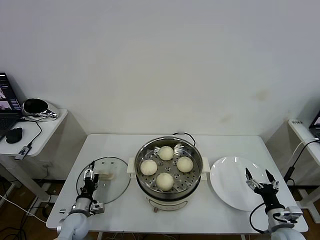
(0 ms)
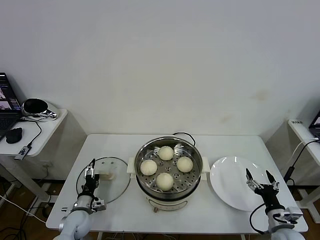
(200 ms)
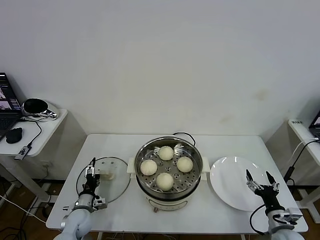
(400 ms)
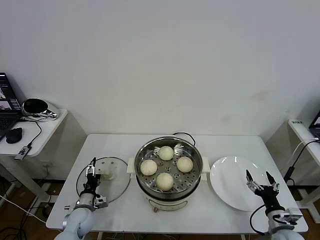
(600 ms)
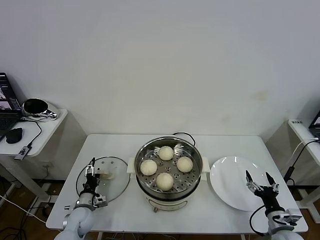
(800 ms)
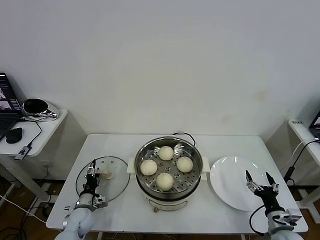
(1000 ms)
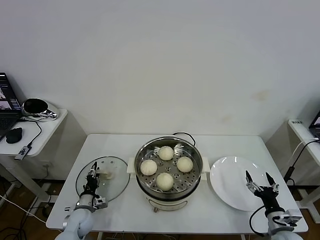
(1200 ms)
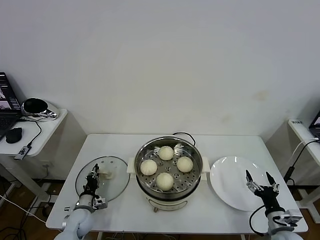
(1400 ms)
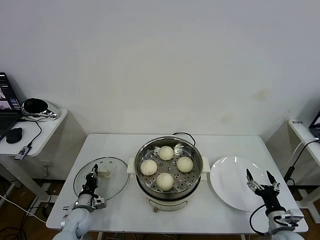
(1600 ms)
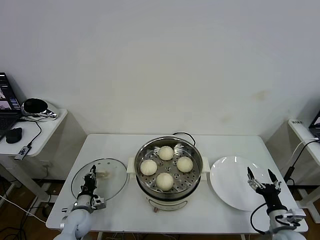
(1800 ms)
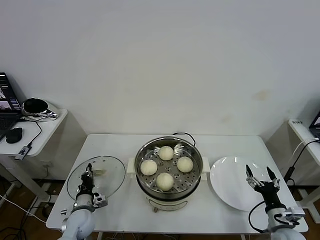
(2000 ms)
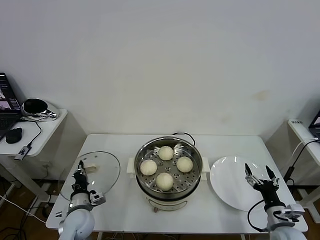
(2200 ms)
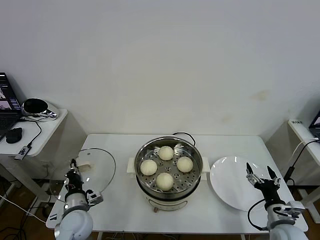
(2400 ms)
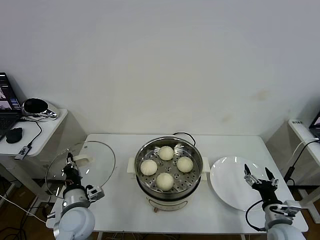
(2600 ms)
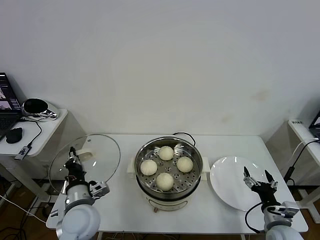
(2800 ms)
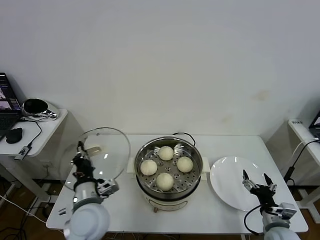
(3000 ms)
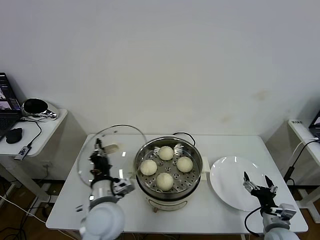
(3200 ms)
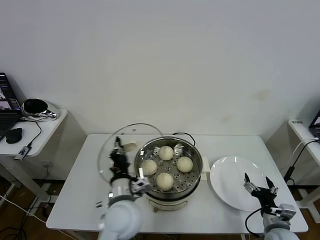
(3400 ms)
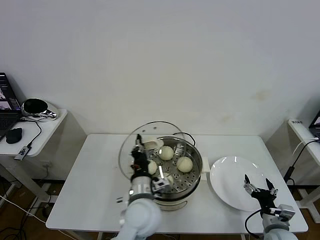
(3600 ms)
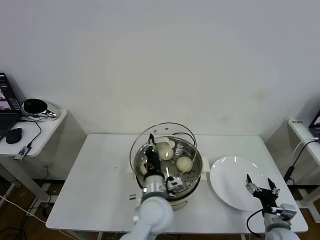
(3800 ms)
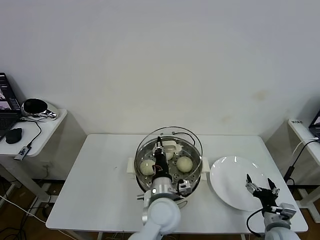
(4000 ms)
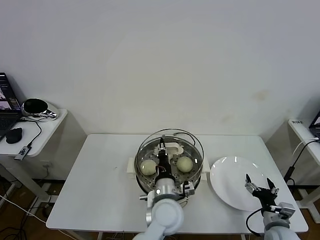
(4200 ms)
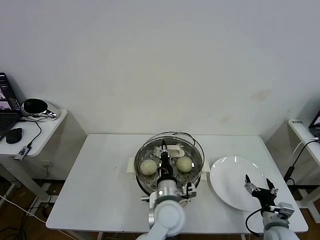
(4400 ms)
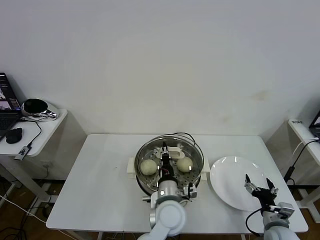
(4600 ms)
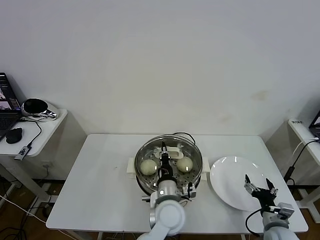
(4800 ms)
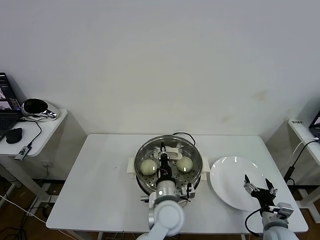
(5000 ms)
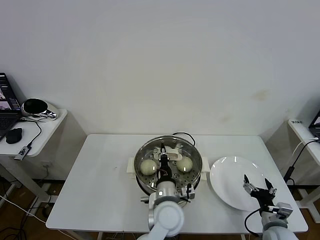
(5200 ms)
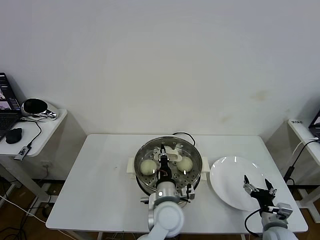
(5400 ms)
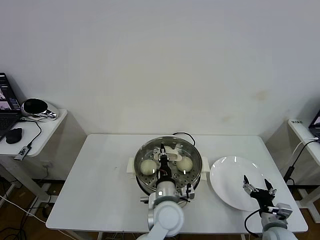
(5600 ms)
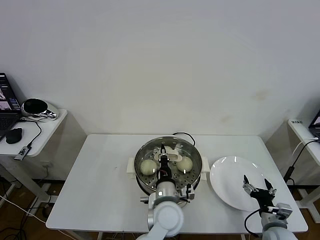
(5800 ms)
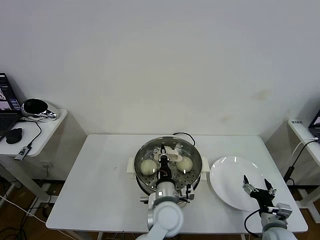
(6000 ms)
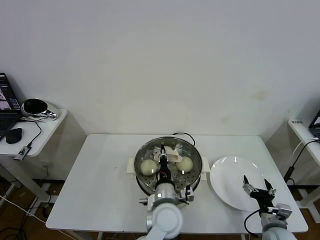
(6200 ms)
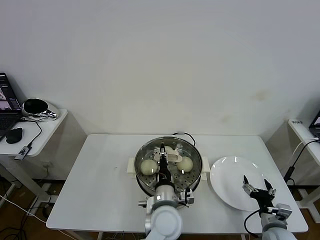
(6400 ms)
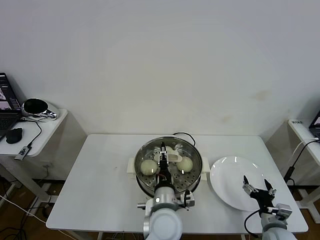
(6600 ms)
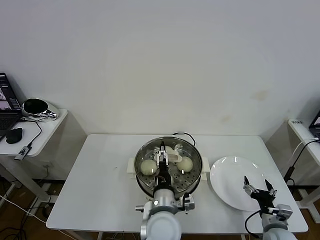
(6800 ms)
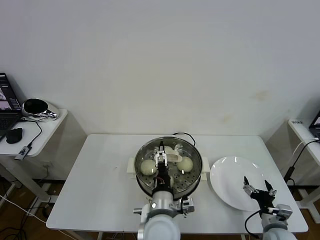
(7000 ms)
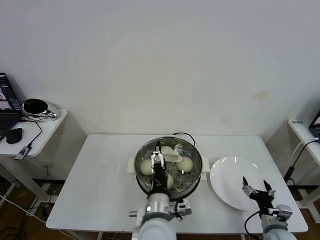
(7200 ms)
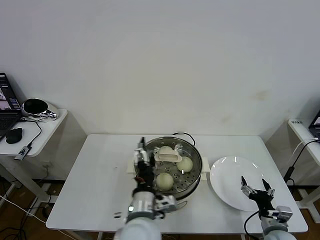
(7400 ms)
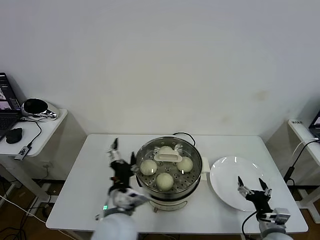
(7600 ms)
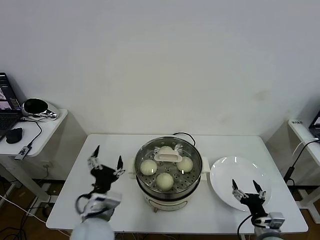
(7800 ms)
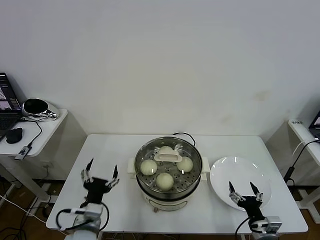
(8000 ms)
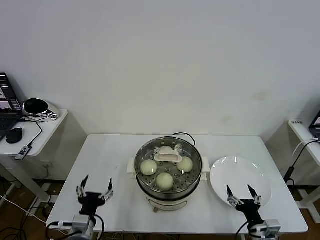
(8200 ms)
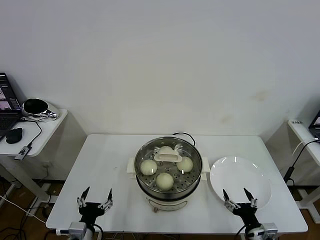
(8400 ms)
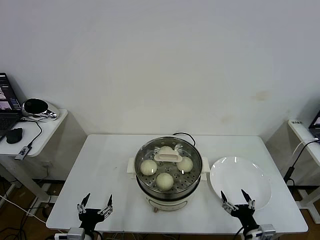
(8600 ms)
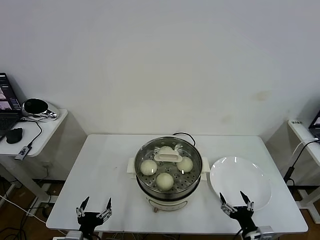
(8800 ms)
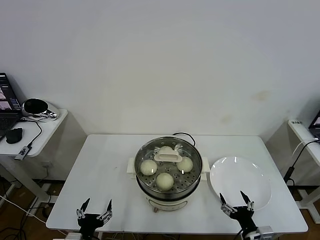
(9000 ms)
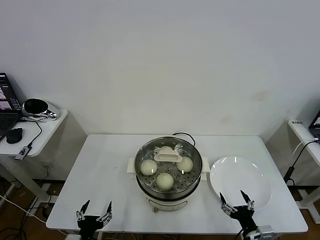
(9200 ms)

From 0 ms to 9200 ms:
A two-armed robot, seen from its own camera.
Task of the whole recording: take steamed baozi put them in steamer then cover it.
Step, from 1800 ms to 6400 ms: Place the pot lid on the steamer with left gripper.
From 0 ms to 1600 ms: The left gripper closes up.
From 1600 ms to 3000 ms: The left gripper travels upward and to the right by approximately 25 cm.
From 3000 ms to 4600 ms: The left gripper goes approximately 20 cm to the right.
From 4600 ms to 6200 ms: Both grippers stay about where they are.
From 6200 ms to 7600 ms: The left gripper moves to the left, upward and backward, approximately 15 cm, and opens its fingers.
From 7600 ms to 9200 ms: The left gripper is displaced to the left, downward and backward by approximately 25 cm. Meanwhile the right gripper travels backward by roughly 5 cm.
